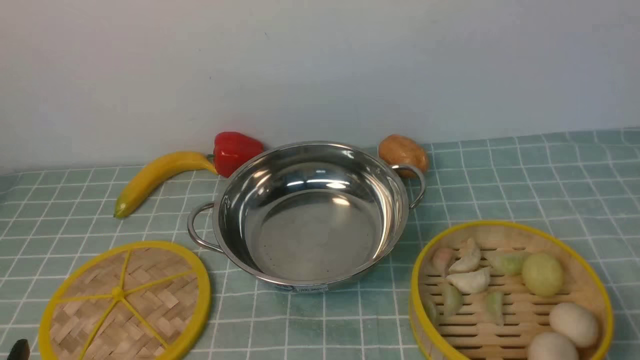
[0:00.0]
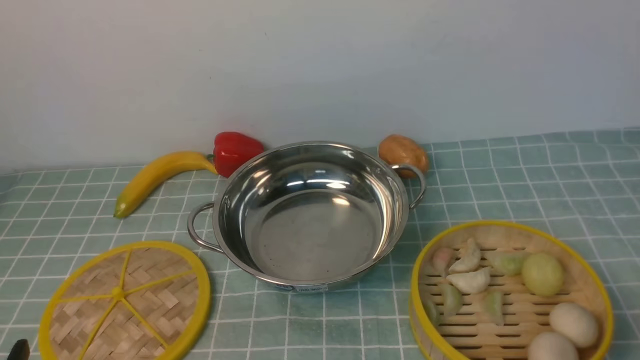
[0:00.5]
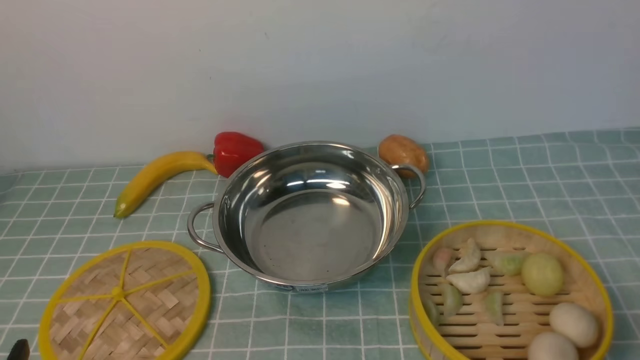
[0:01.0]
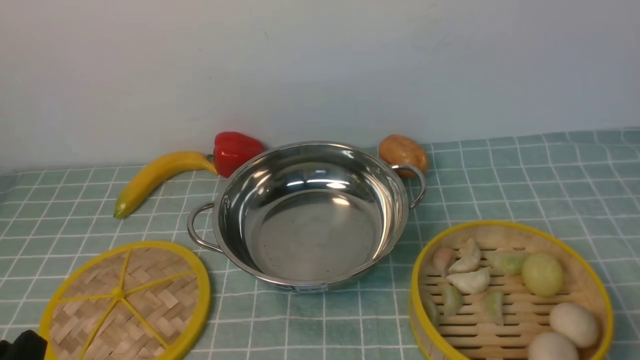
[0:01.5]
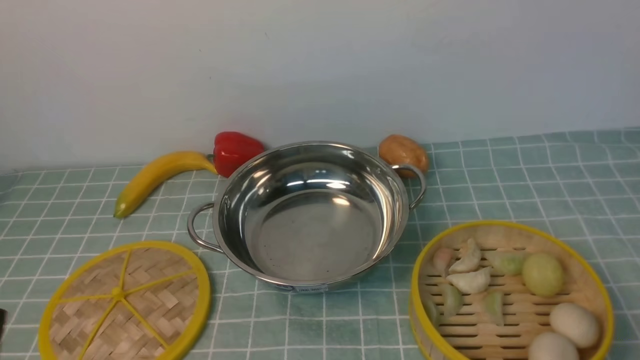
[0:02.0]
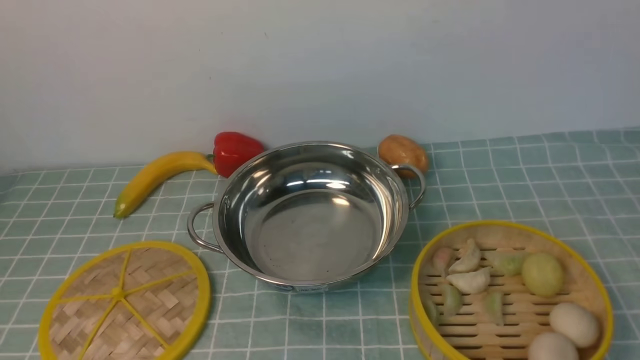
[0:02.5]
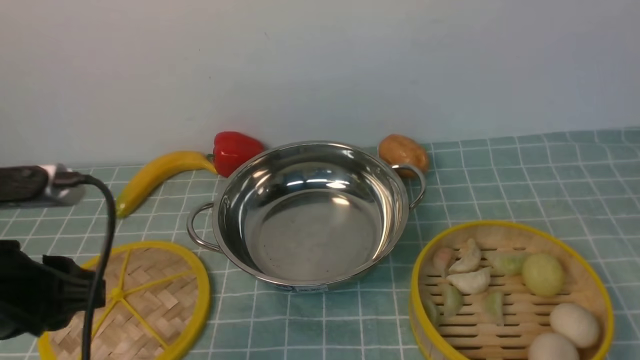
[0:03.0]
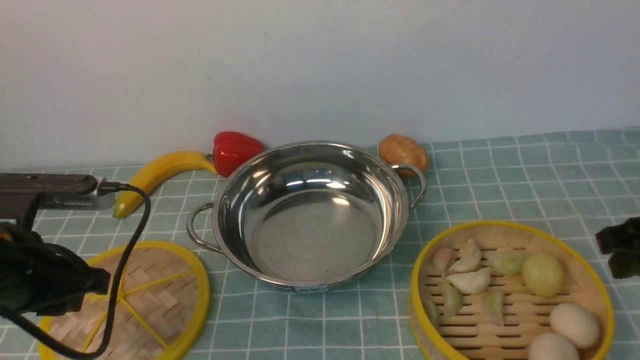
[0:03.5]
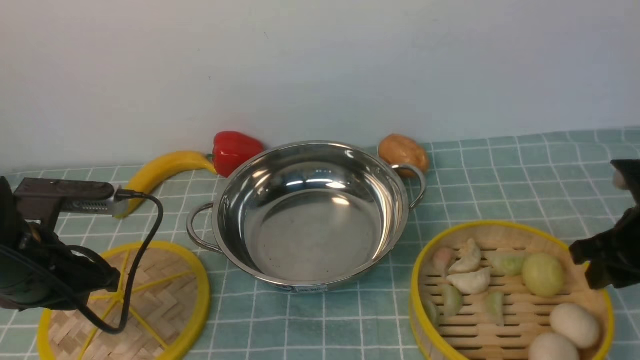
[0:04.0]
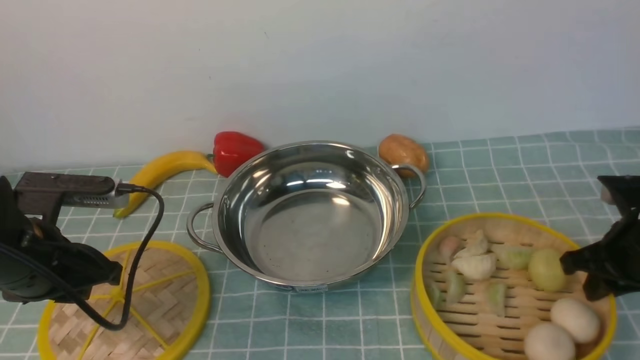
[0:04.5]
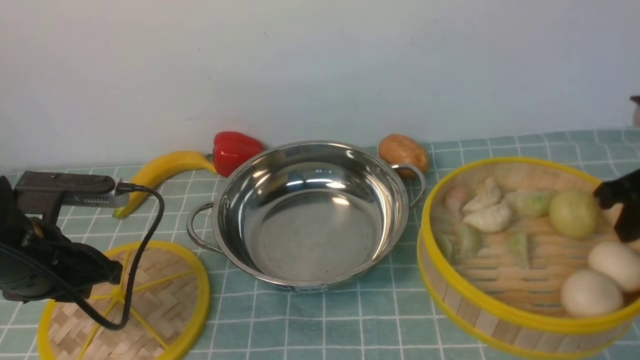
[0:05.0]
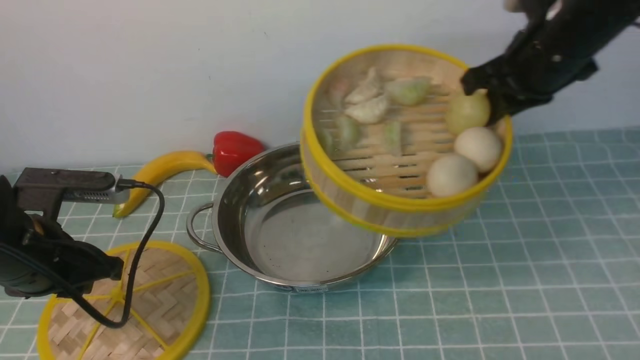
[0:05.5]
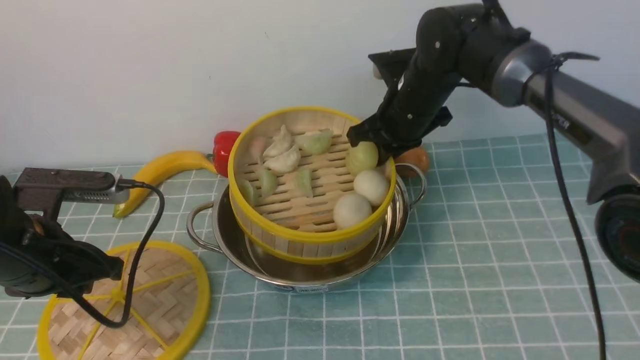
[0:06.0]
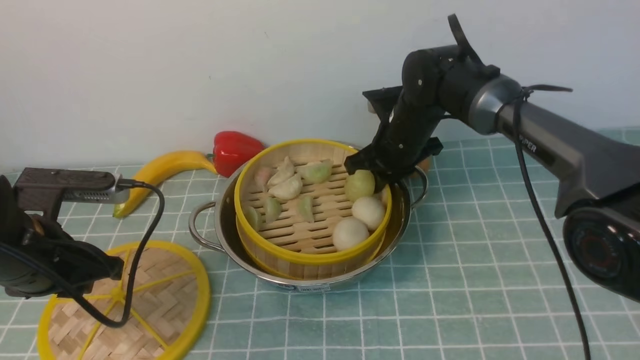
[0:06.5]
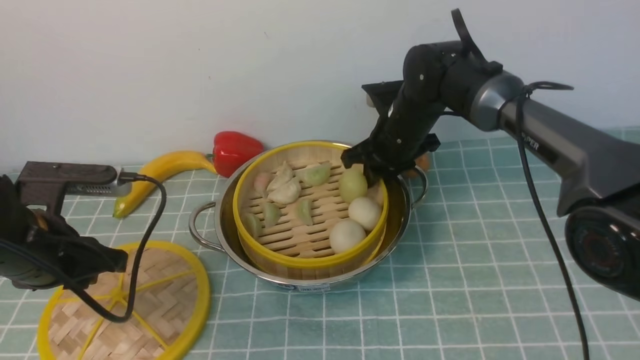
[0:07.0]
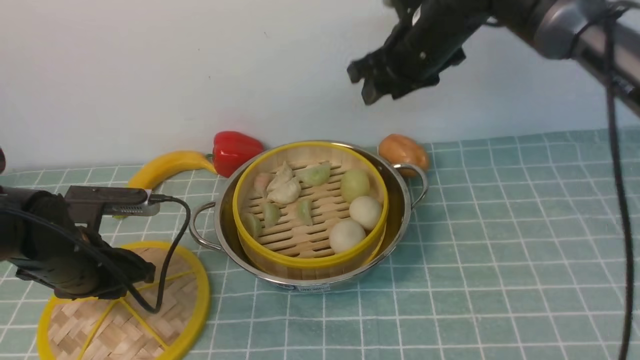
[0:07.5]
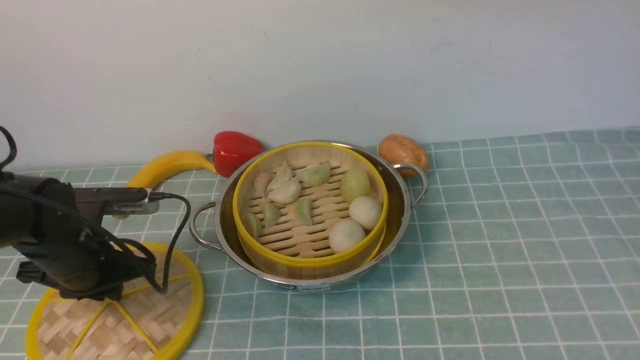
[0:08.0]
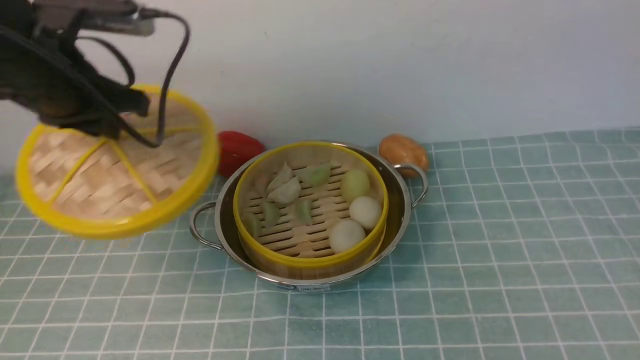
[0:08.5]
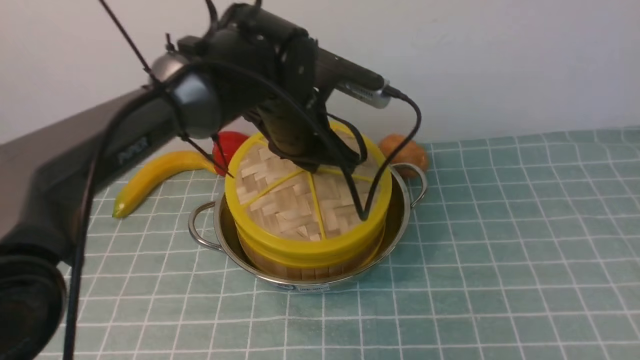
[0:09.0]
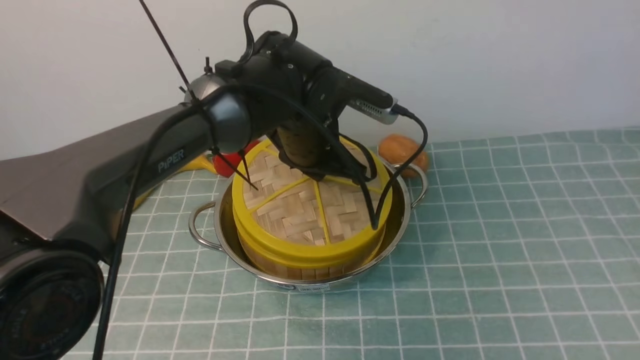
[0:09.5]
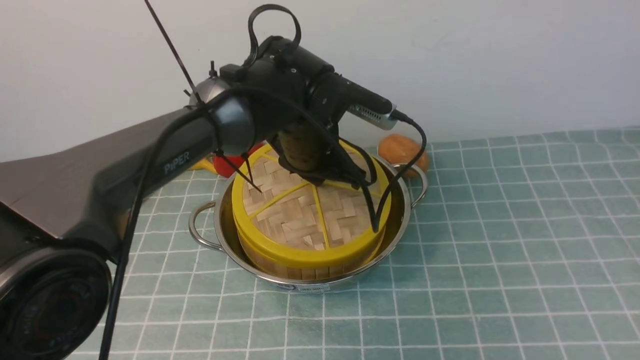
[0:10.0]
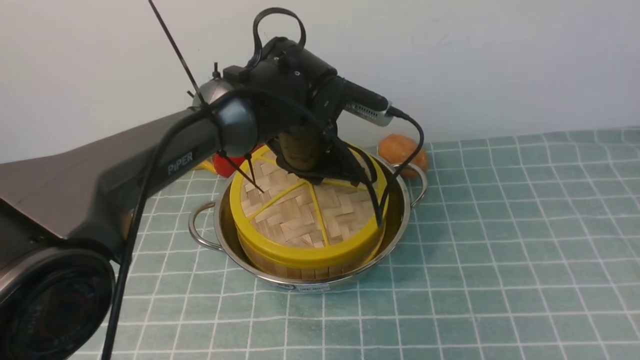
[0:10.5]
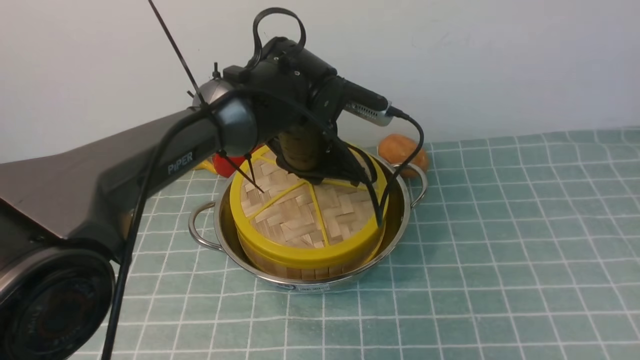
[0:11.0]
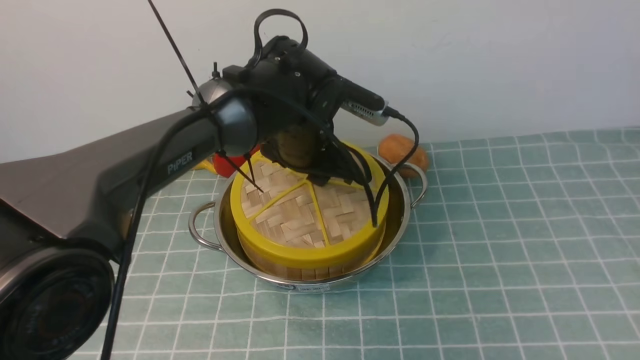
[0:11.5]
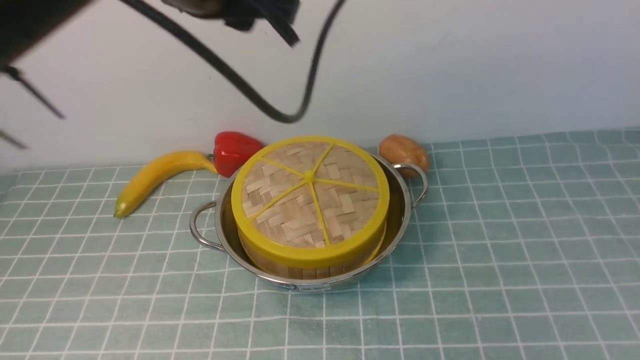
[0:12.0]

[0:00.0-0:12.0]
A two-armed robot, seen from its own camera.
Task of the whole recording: place the steamer in the pot on the blue tablecloth, and put the lid on the steamer.
Step, 0:00.0 to 0:04.5: use the right arm to place the steamer lid on the steamer.
Step, 0:05.0 to 0:07.5: use the right arm to put the steamer into the iron steamer pot in the middle.
Step, 0:08.5 to 0:12.0: use the left arm to place the steamer lid on the steamer.
0:02.0 to 0:04.0: Both grippers travel together forward, some 20 cm.
0:04.0 to 0:06.0: The right gripper is displaced to the left and forward by some 25 cm, and closes.
0:06.0 to 0:08.0: The left gripper travels forward by roughly 5 cm; the right gripper heads upward and backward, covering about 35 cm, and opens its fingers.
0:08.0 to 0:10.0: The left gripper shifts roughly 25 cm to the right; the right gripper travels backward and to the right by roughly 20 cm.
0:10.0 to 0:12.0: The right gripper closes its fingers. Meanwhile the left gripper heads upward, covering some 20 cm, and opens, then closes again.

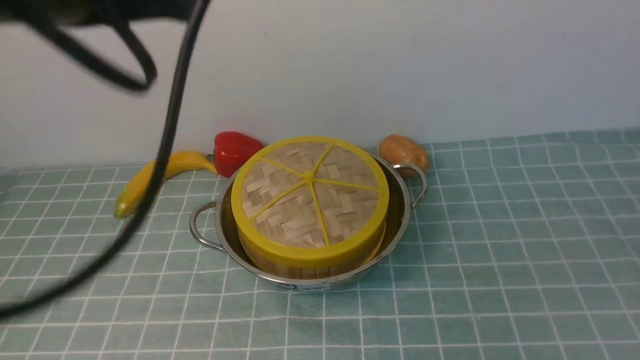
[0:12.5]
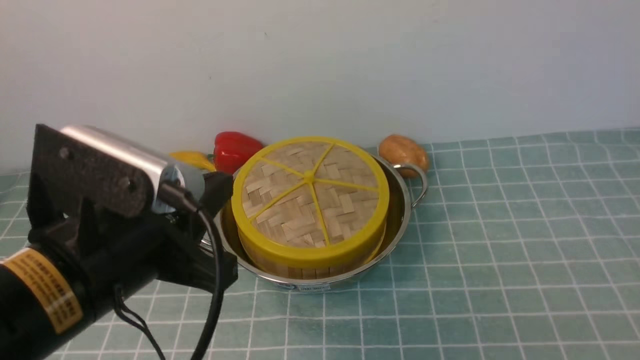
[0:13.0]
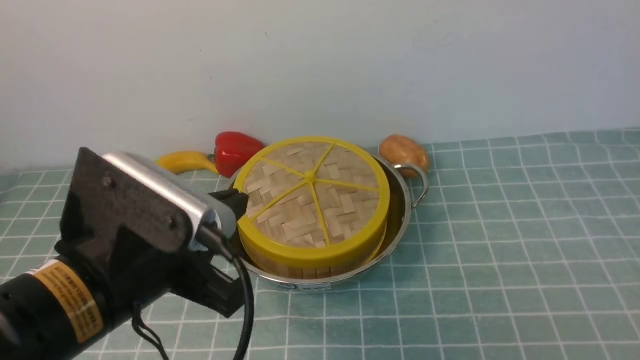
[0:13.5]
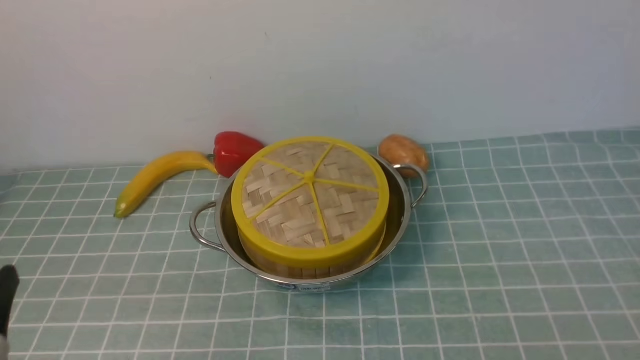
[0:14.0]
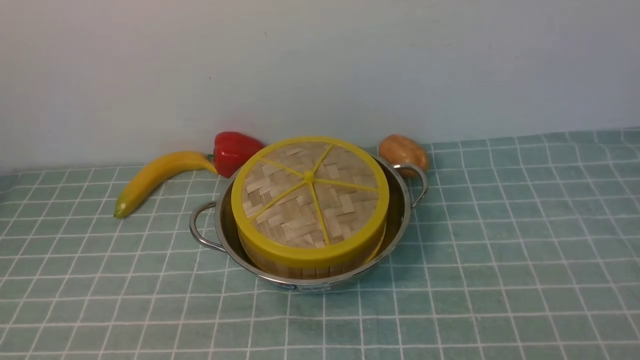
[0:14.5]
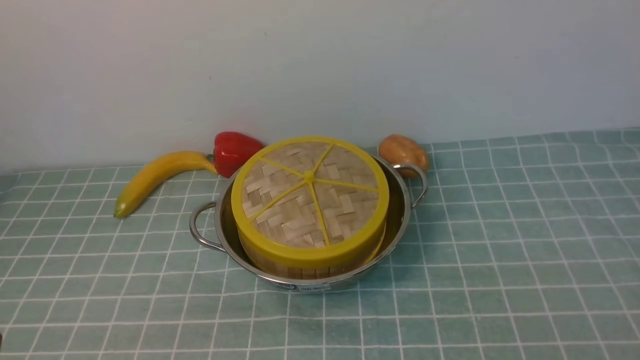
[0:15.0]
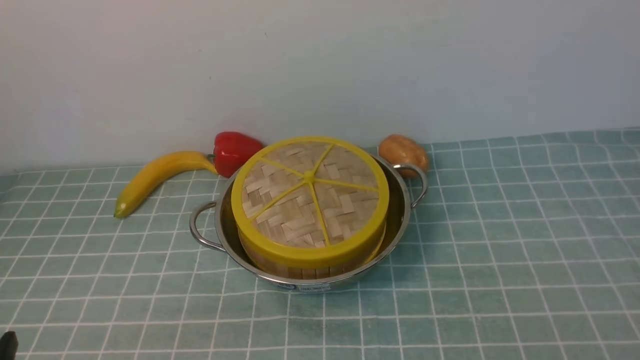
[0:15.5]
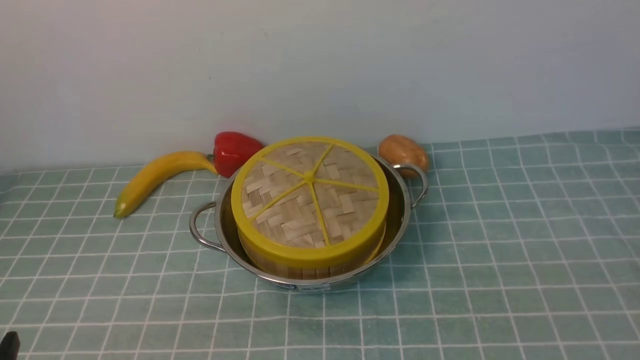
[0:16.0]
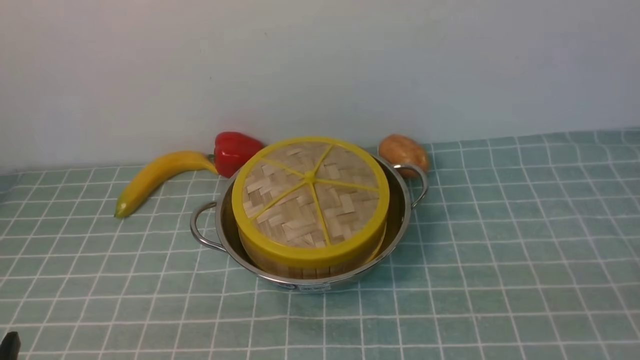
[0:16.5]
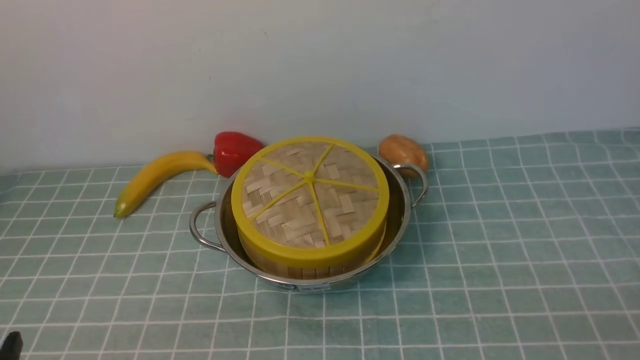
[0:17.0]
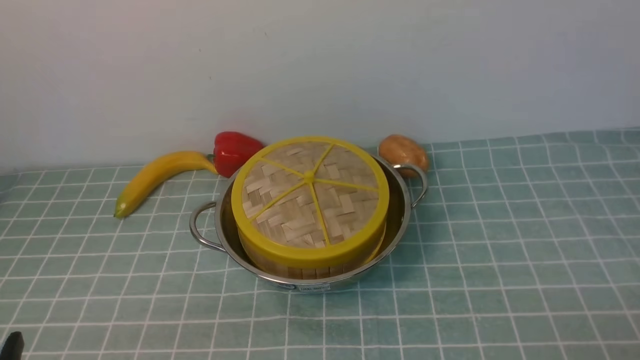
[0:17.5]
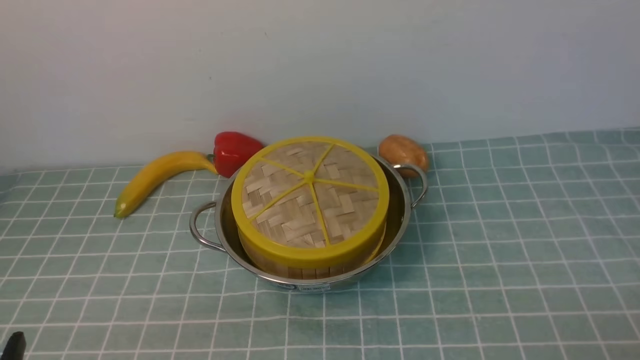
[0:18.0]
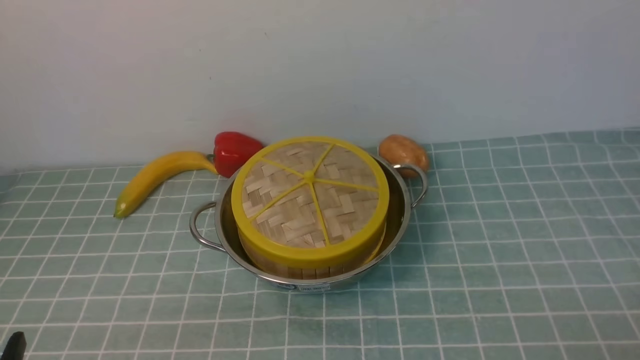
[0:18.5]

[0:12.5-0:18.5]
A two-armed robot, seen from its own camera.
Task of the whole recording: place the steamer in the pot on the blue tablecloth, and put the lid on the steamer.
0:12.5 to 0:14.5: The left gripper shifts roughly 30 cm downward, backward and to the left.

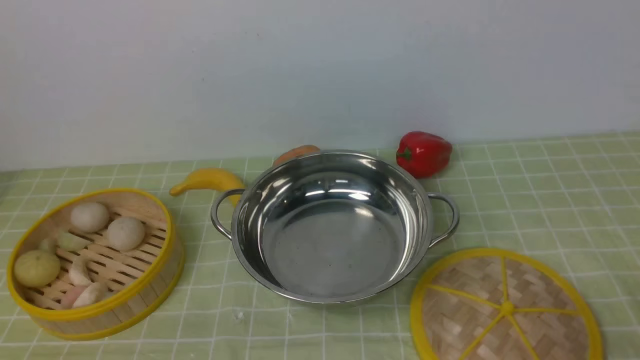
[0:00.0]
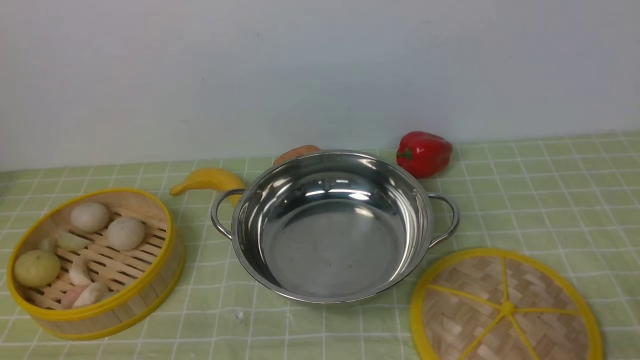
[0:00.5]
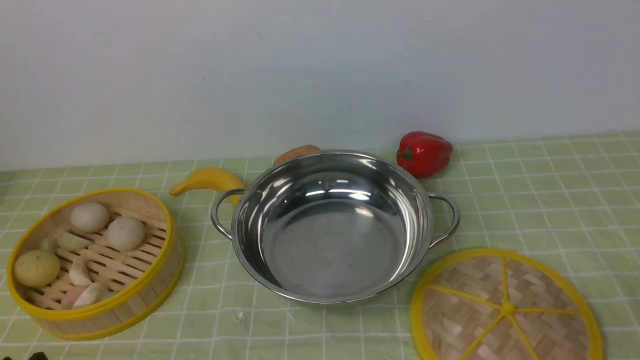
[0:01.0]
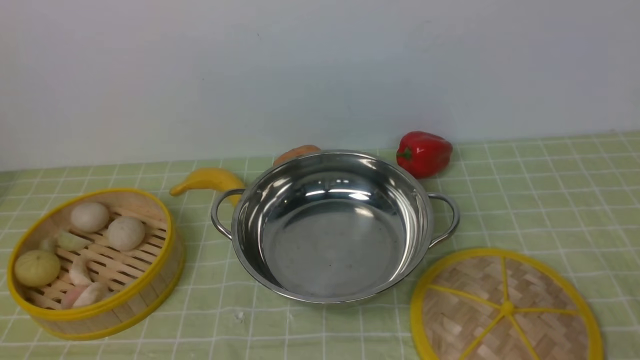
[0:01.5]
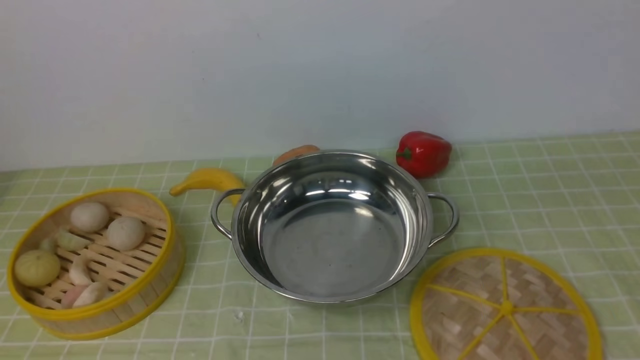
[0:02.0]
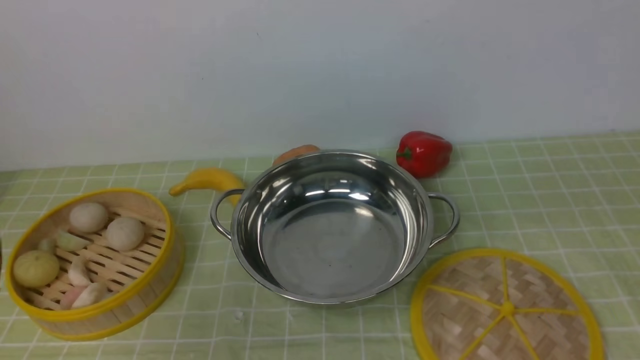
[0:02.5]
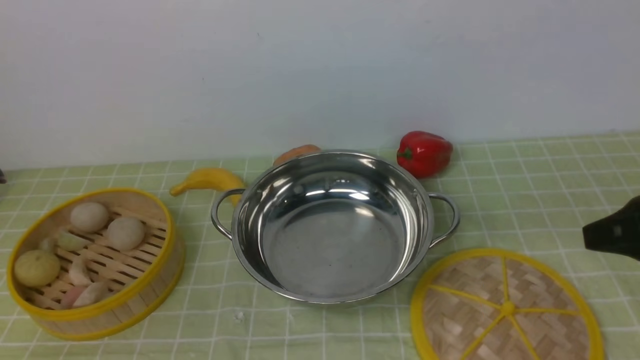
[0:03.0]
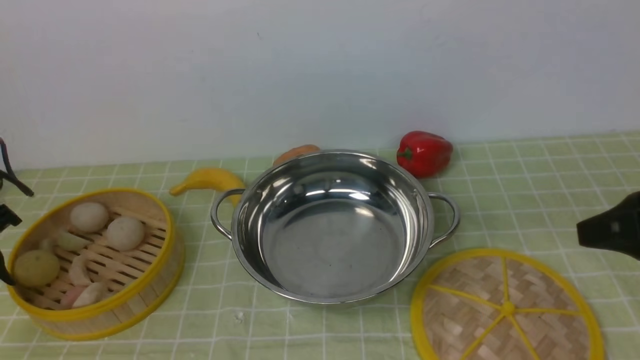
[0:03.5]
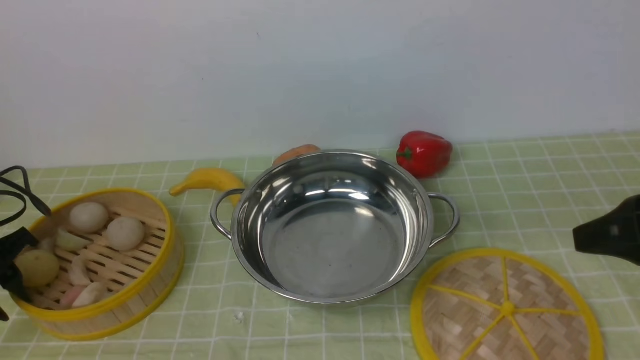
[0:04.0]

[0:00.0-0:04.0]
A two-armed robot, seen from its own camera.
Task of the whole recording: place the steamer in the pot on the green tablecloth, and put the lid on the steamer.
0:02.0 to 0:04.0: The left gripper goes roughly 35 cm forward, downward and to the left. Meanwhile the right gripper travels forward and downward by roughly 15 cm.
